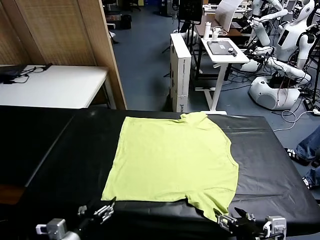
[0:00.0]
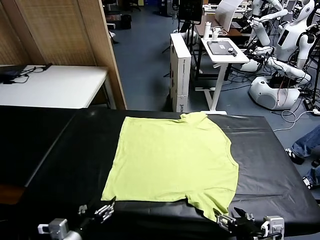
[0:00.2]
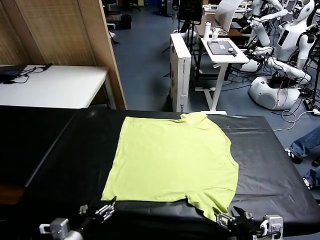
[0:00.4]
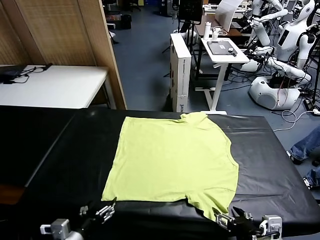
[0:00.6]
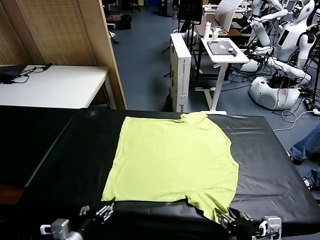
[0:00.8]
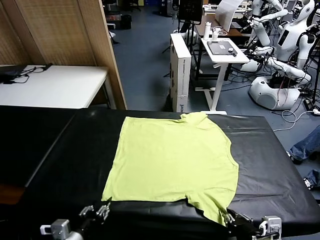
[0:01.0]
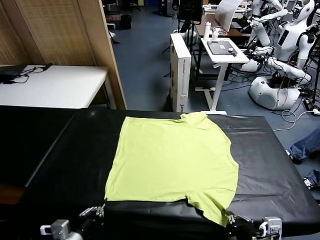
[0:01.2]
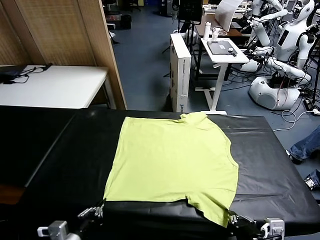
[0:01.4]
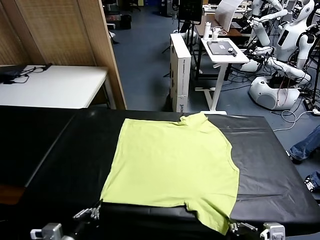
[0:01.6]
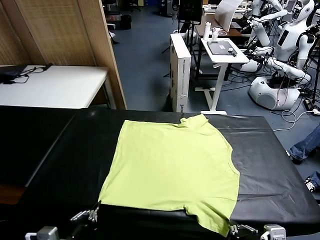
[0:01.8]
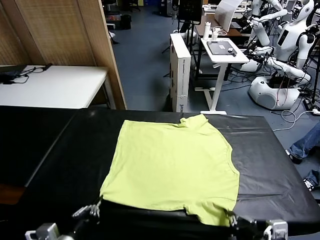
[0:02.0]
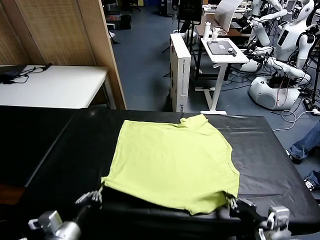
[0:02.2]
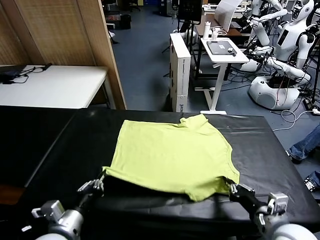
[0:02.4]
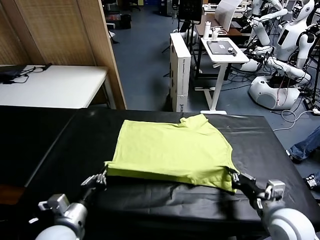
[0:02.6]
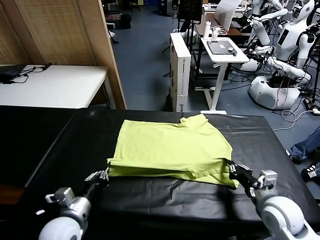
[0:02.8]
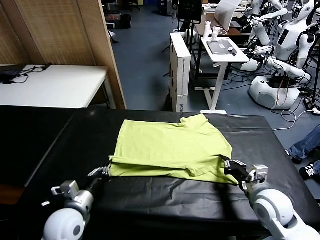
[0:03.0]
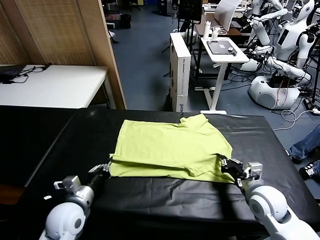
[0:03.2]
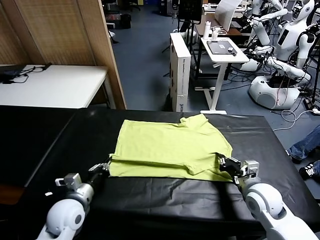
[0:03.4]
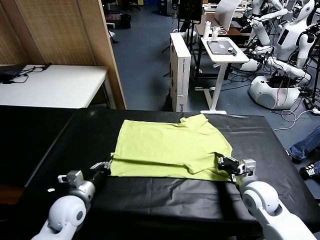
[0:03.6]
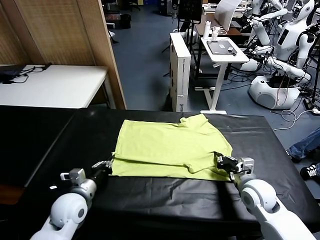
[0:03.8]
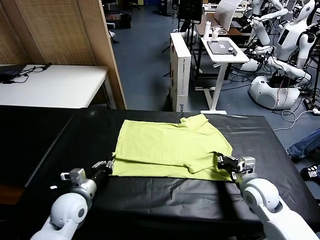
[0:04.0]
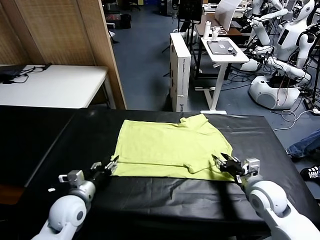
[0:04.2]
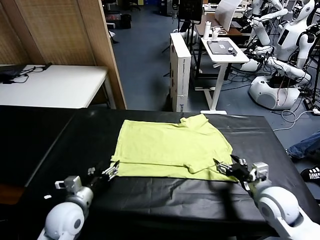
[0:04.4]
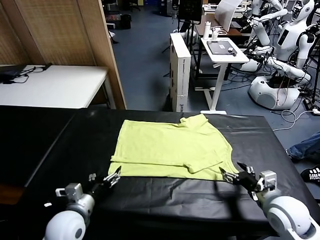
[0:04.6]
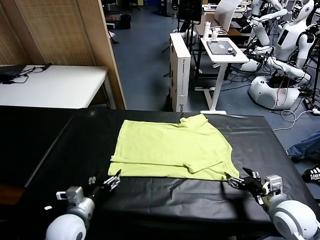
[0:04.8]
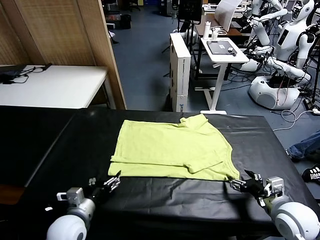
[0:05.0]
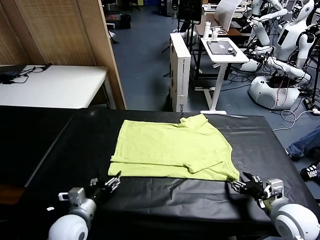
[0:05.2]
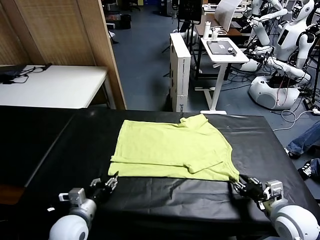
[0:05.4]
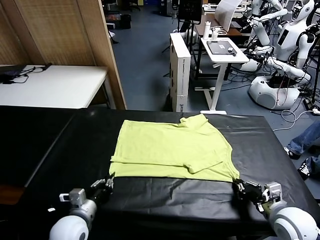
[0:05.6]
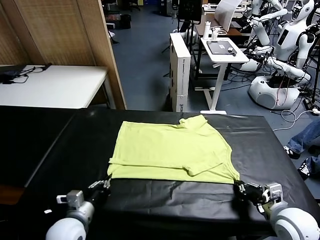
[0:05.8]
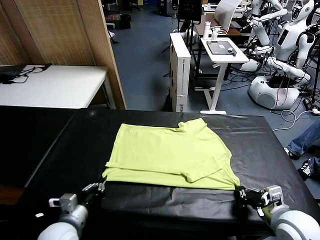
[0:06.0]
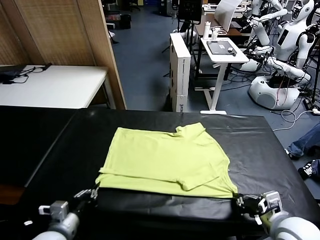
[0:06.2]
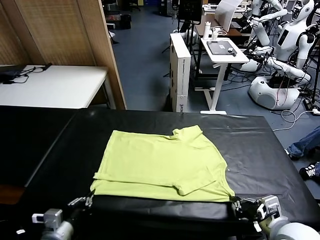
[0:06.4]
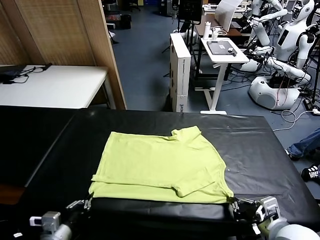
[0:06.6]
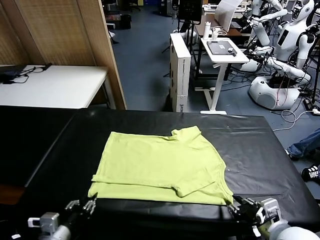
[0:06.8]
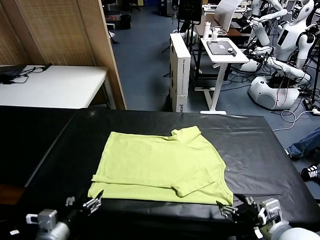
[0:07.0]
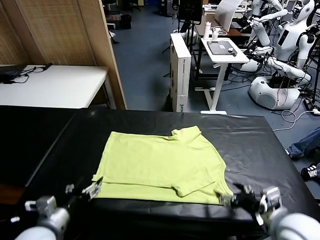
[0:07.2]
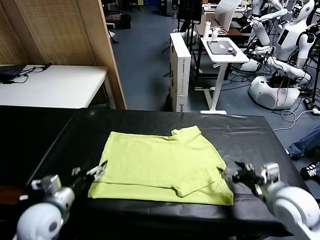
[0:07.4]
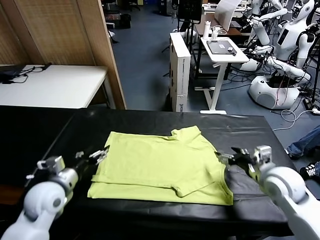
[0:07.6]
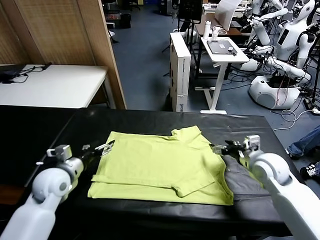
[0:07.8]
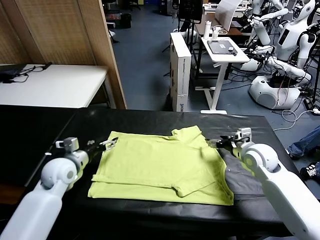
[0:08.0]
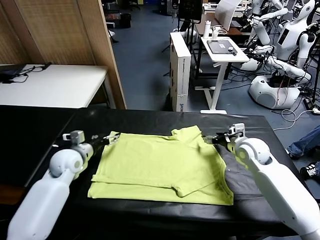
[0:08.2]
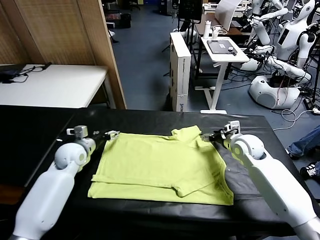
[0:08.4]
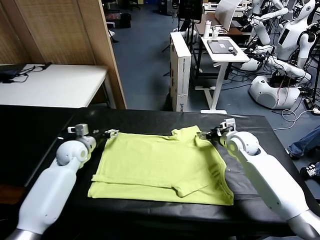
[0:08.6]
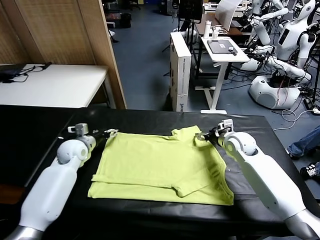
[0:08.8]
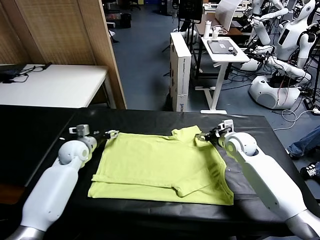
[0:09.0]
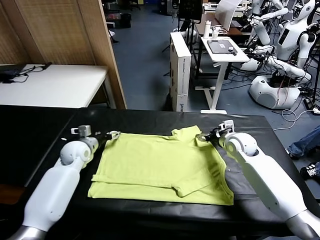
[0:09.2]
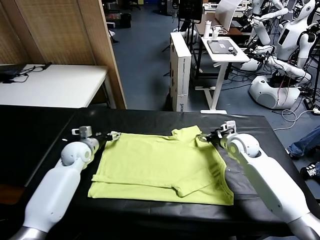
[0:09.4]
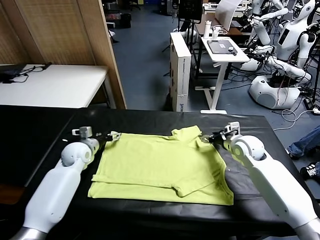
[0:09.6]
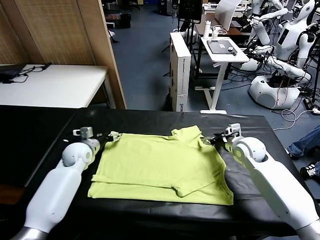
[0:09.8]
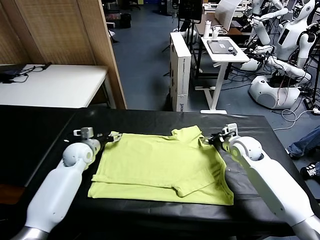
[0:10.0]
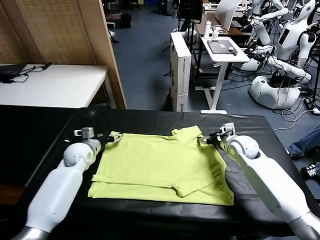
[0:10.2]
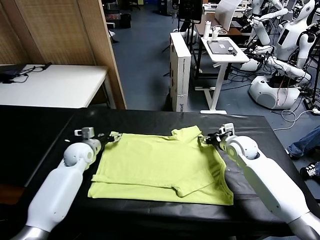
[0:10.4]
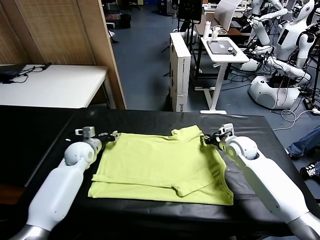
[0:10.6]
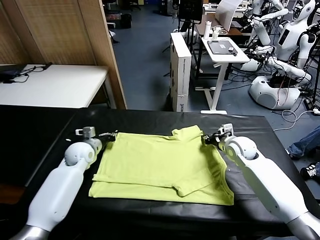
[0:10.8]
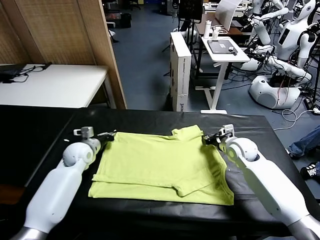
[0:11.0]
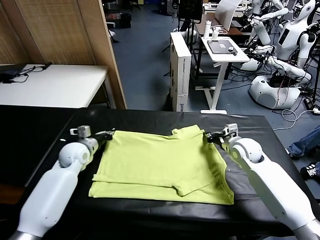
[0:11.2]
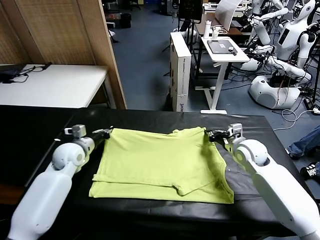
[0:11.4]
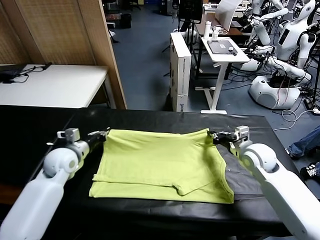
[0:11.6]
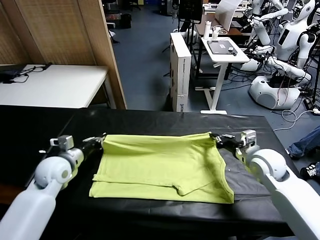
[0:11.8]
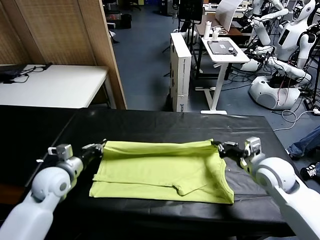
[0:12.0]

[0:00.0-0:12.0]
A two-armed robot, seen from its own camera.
Task of the whole recording: fold and organize the clothes.
Step, 0:00.0 to 0:01.4: use both grippers simultaneously to clamp the lower edge of the clothing fabric.
Step, 0:01.6 to 0:04.4: use both grippers to drag the lower edge of the fabric forward and fold it over the upper edge.
Step, 0:04.6 to 0:07.0: Drag the clothes downward with both gripper.
Step, 0:07.2 to 0:10.8: use both grippers simultaneously to clamp the upper edge of the clothing fabric.
0:01.6 to 0:03.0: Both grippers move forward, approximately 15 cm.
0:03.0 to 0:04.4: The left gripper opens up. Meanwhile the right gripper changes place by some 5 cm, and opens its fingers.
0:04.4 to 0:06.0: Both grippers travel together backward, some 5 cm. The left gripper closes its fingers; the right gripper closes its fingers.
0:06.0 to 0:07.6: The two grippers go some 20 cm forward. The right gripper opens; the left gripper opens.
0:07.6 to 0:09.0: Both grippers move forward, approximately 10 cm.
0:09.0 to 0:10.4: The right gripper closes up, while the left gripper closes up.
0:10.4 to 0:12.0: The grippers both shift backward by roughly 15 cm. The left gripper closes its fingers.

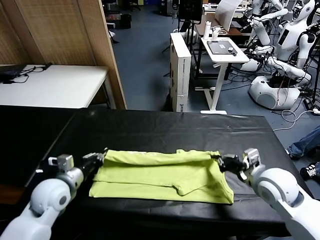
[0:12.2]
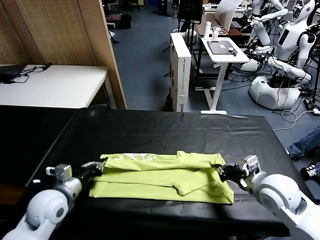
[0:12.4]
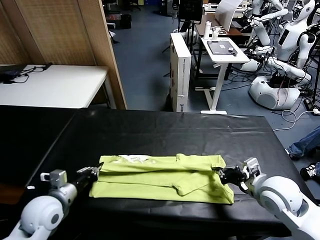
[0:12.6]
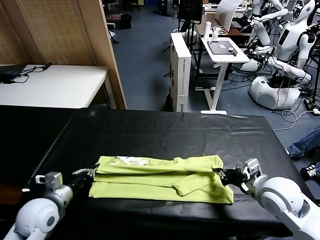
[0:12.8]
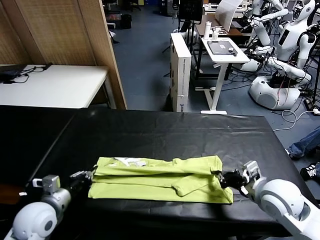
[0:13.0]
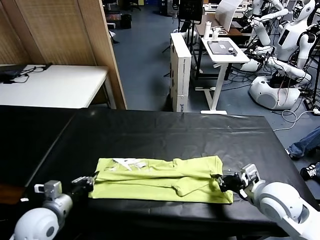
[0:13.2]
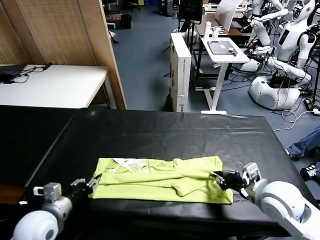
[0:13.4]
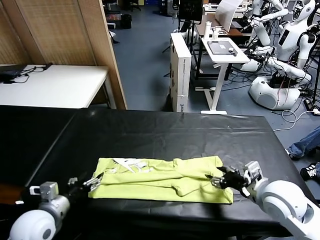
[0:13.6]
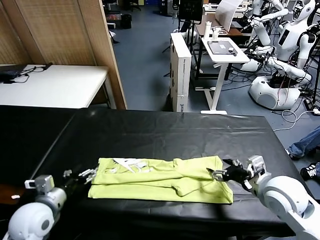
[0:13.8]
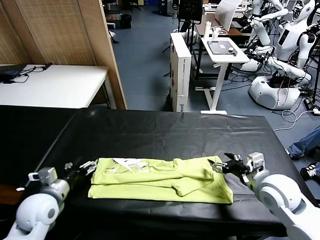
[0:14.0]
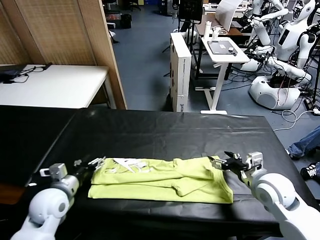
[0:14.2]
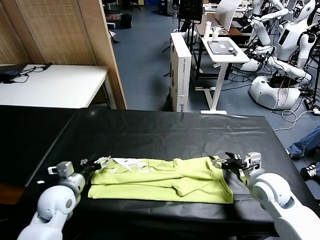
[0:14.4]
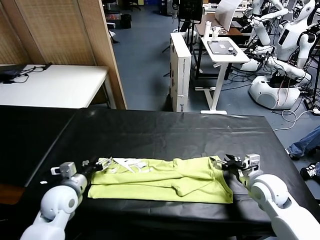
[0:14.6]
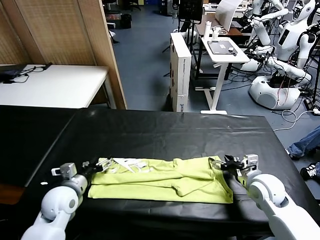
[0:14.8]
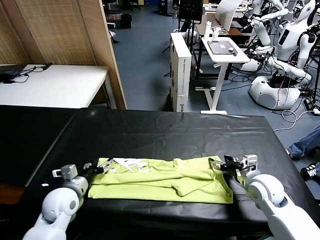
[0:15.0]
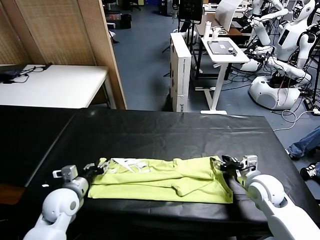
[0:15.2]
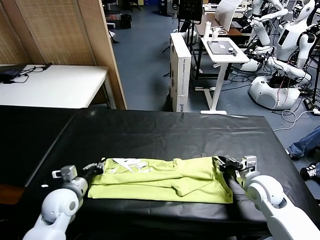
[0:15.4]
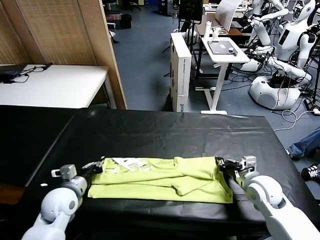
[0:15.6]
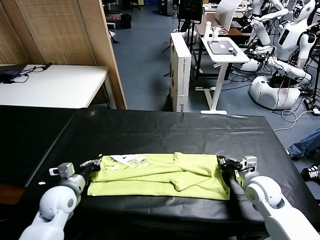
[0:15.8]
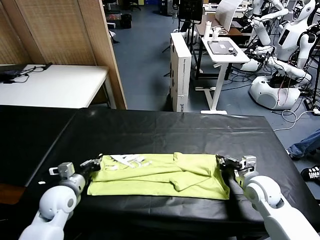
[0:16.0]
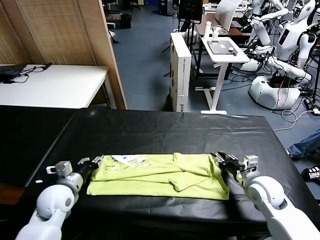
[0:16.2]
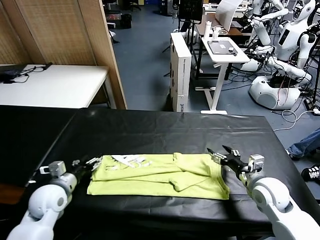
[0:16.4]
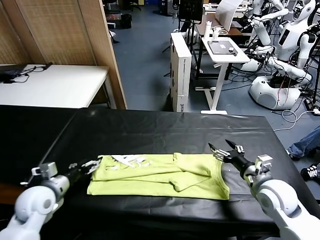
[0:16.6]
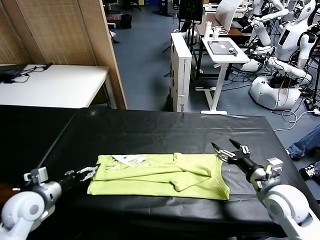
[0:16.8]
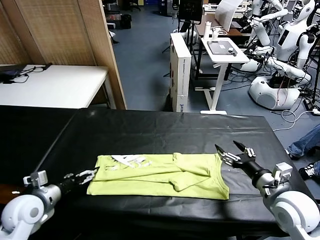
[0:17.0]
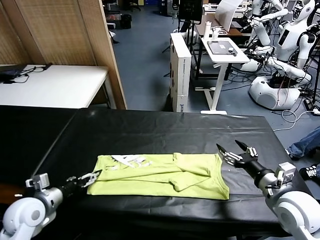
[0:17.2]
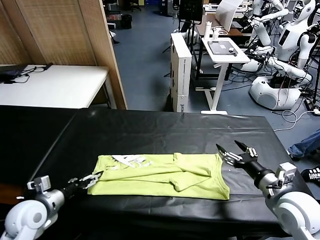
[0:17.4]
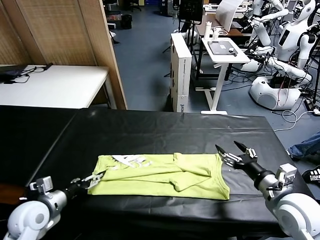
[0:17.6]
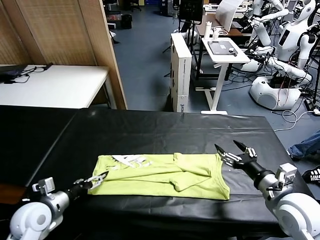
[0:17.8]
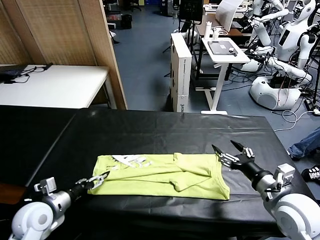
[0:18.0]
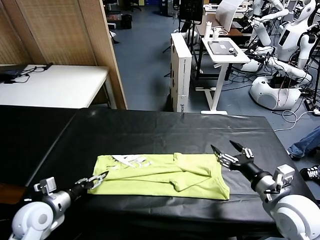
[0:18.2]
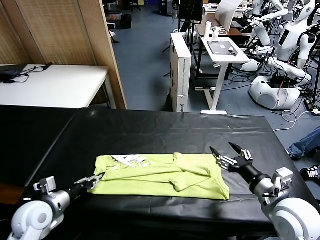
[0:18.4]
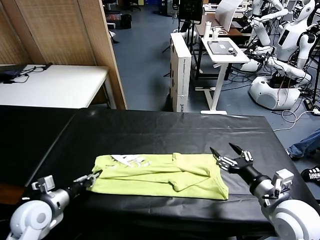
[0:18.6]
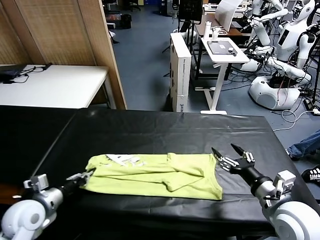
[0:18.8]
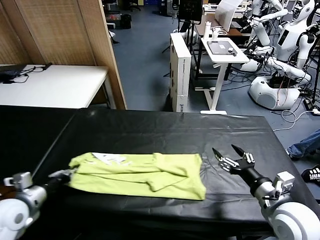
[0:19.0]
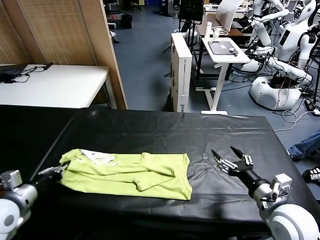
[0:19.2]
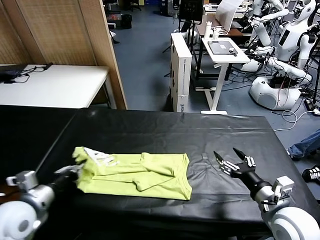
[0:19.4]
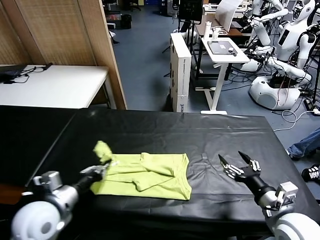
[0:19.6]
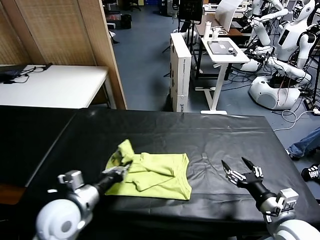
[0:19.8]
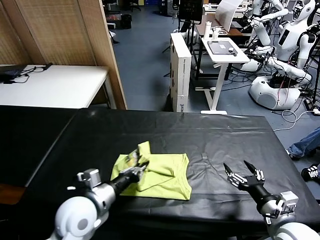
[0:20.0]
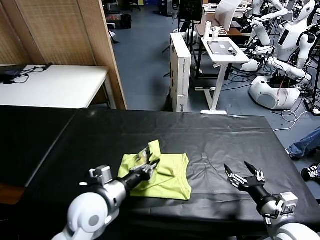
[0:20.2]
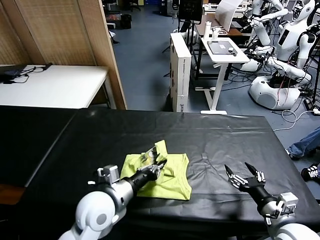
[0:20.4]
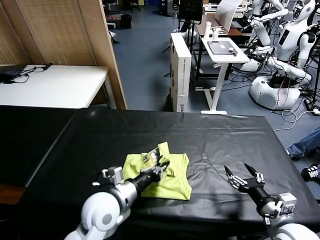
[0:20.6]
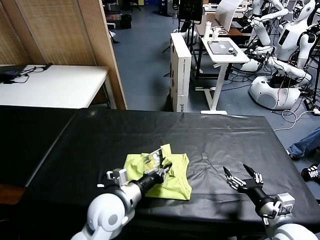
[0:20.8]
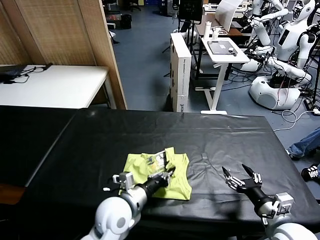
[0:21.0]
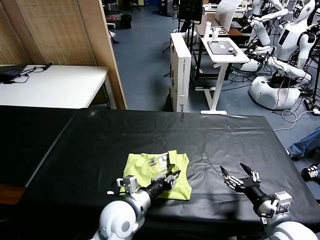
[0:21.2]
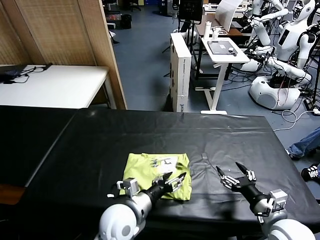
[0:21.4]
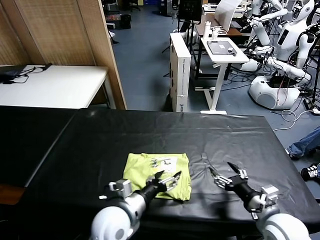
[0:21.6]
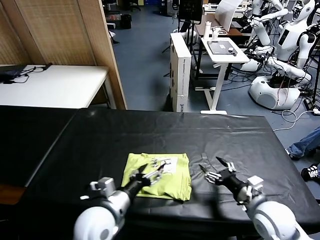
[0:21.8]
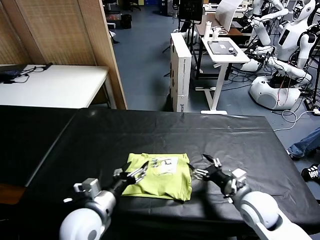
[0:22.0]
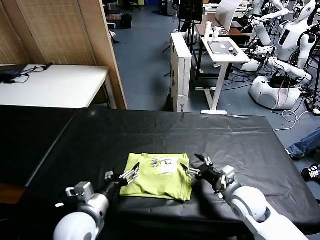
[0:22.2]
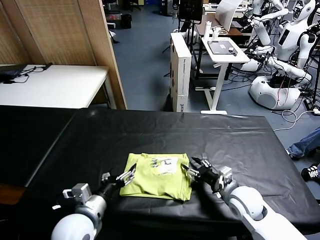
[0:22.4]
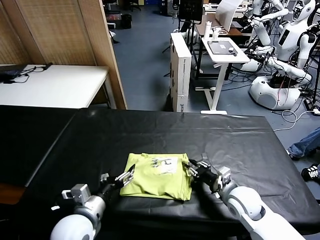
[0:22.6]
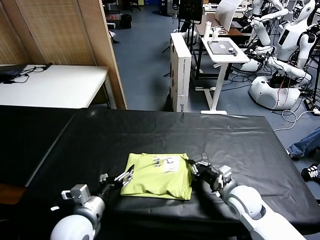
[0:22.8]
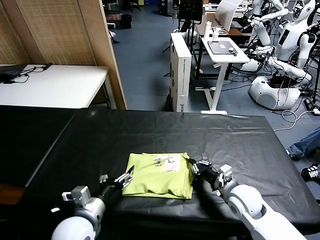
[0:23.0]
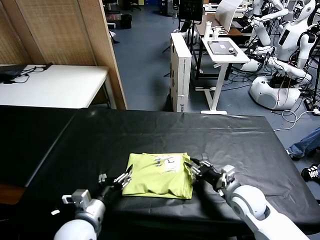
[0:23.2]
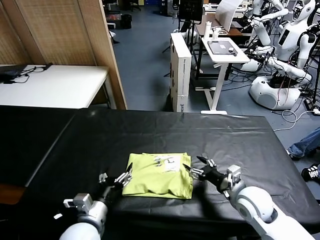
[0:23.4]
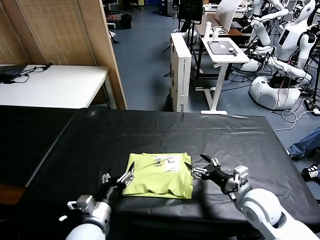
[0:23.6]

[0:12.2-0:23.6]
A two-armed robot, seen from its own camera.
Task of the whole recording: fold and organize the clothes.
Step, 0:13.8 to 0:18.4: use the left gripper to clamp the left edge of the fabric.
Step, 0:18.8 to 0:21.4: use the left gripper to drag the left edge of the fabric to the left and folds it over the right edge.
0:12.2 to 0:13.6: The right gripper opens its fingers; the left gripper shifts about 5 cm backward, and opens up.
0:13.6 to 0:15.0: The left gripper travels forward and downward by roughly 10 cm, while the right gripper heads downward and forward, covering approximately 10 cm.
0:15.0 to 0:16.4: The right gripper closes, then reopens; the left gripper shifts by roughly 5 cm, and closes, then opens again.
0:16.4 to 0:17.8: The left gripper ends up roughly 5 cm from where it was, while the right gripper is displaced backward and upward by about 10 cm.
0:17.8 to 0:19.4: The left gripper shifts about 10 cm upward, and closes up.
0:19.4 to 0:20.8: The left gripper is displaced to the right by some 20 cm.
0:20.8 to 0:22.2: The left gripper shifts about 5 cm to the left, and opens; the right gripper shifts some 15 cm forward and to the left.
0:22.2 to 0:23.6: The right gripper moves some 5 cm, and closes, then opens again. Meanwhile the left gripper shifts roughly 5 cm downward.
